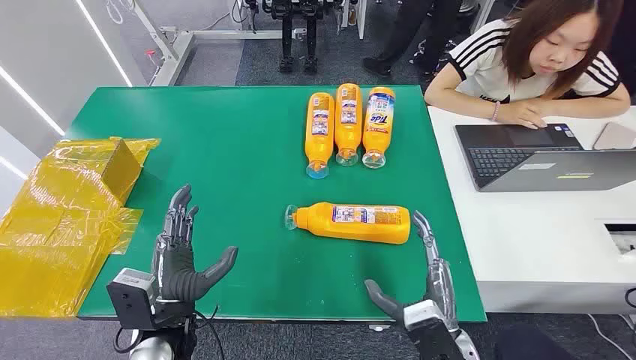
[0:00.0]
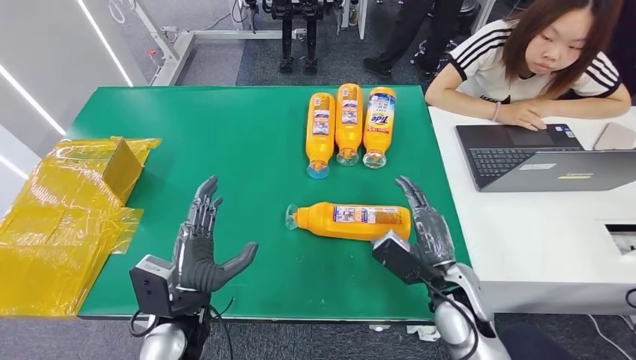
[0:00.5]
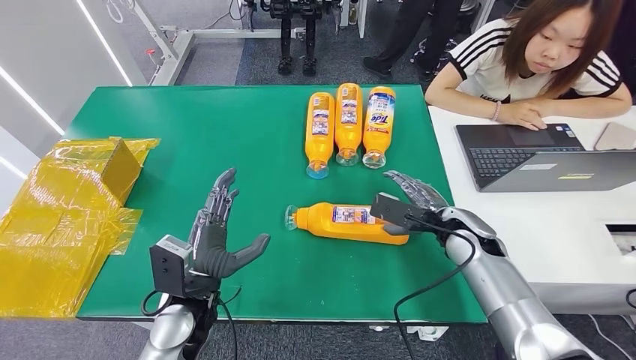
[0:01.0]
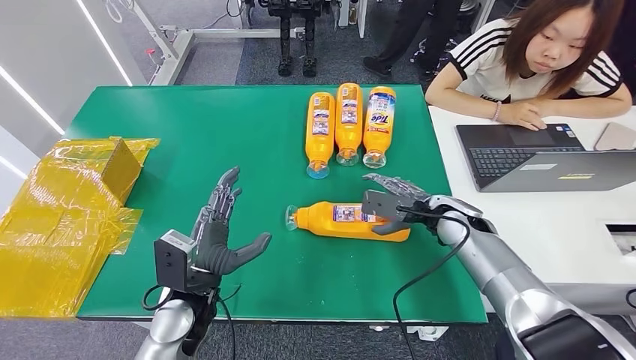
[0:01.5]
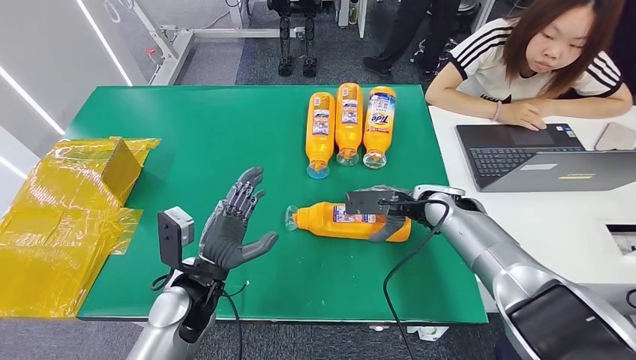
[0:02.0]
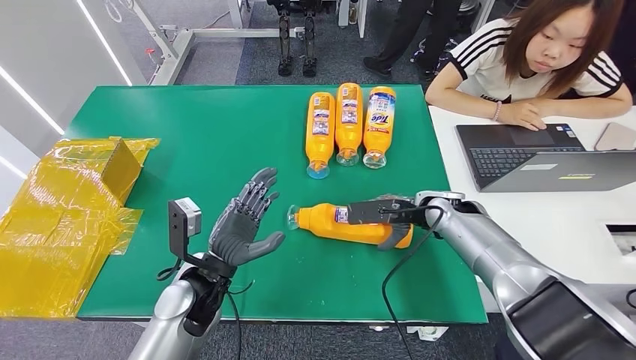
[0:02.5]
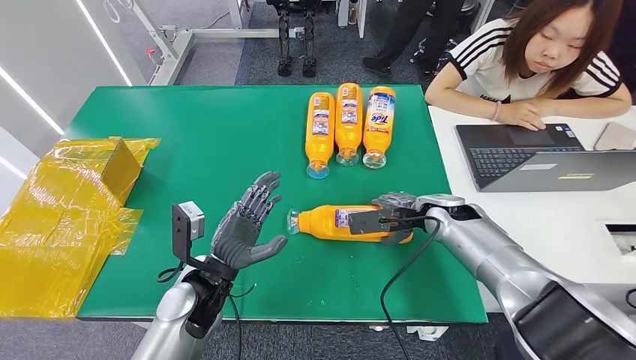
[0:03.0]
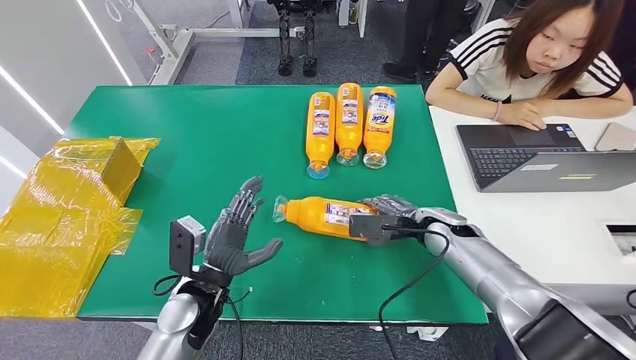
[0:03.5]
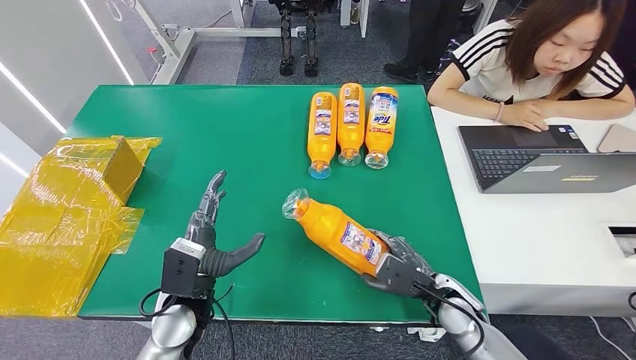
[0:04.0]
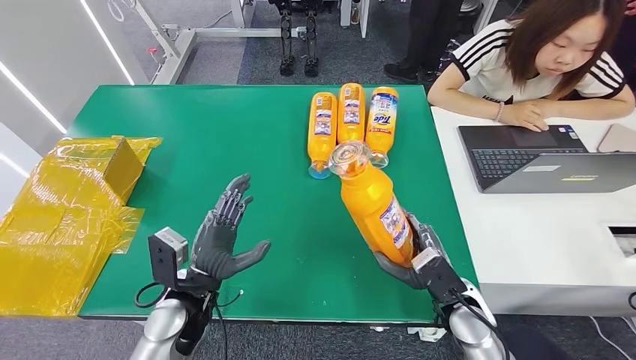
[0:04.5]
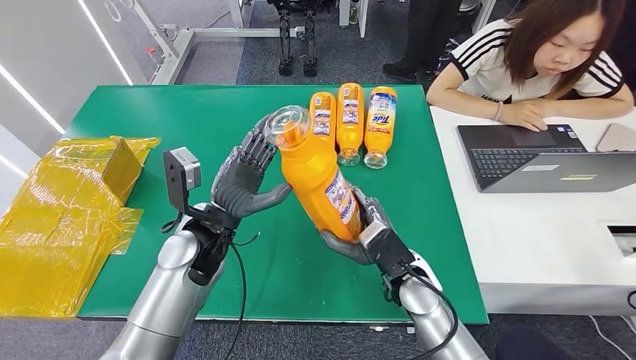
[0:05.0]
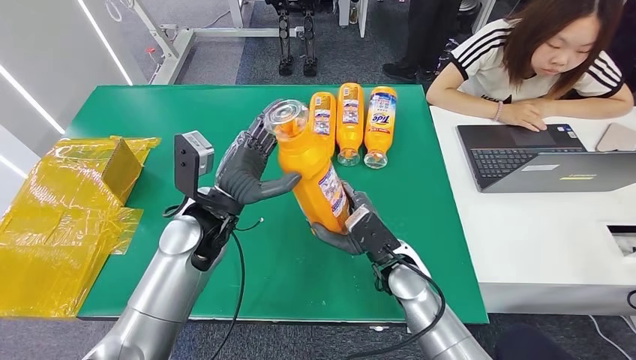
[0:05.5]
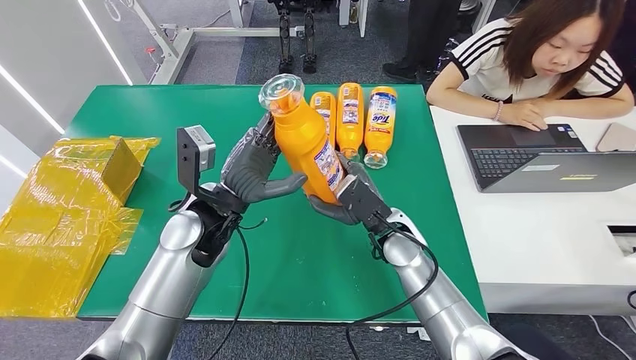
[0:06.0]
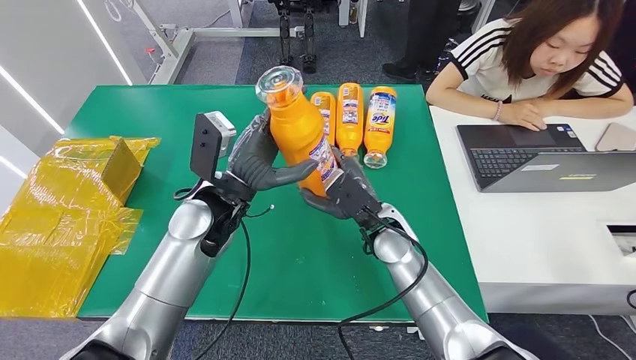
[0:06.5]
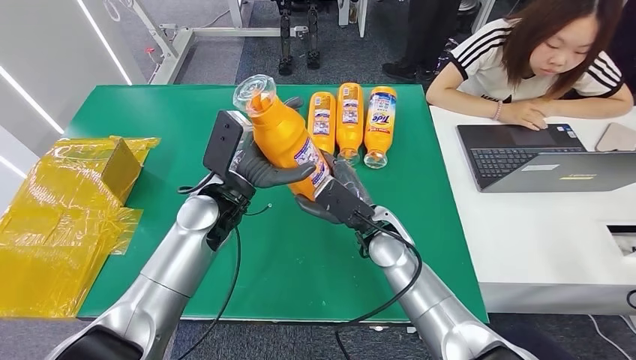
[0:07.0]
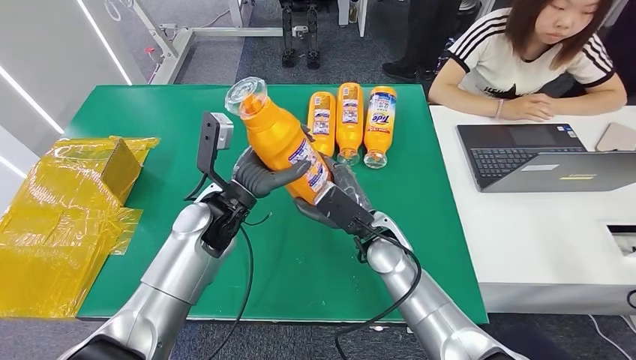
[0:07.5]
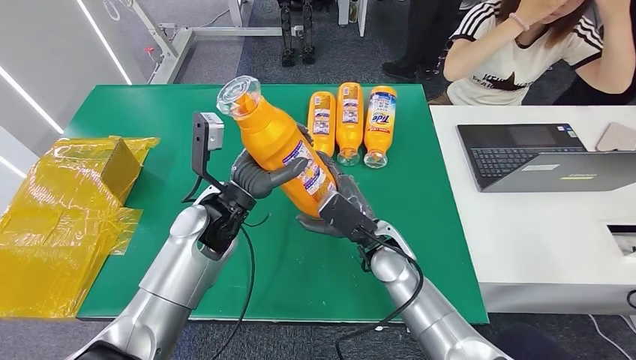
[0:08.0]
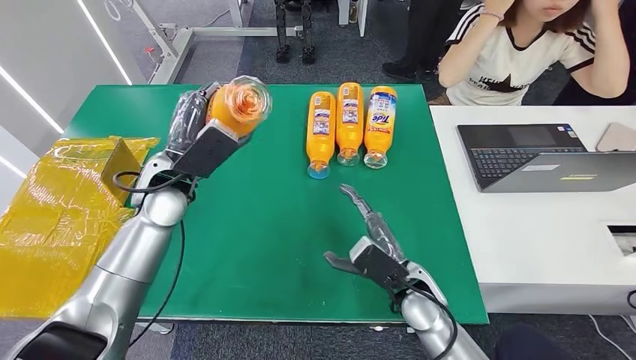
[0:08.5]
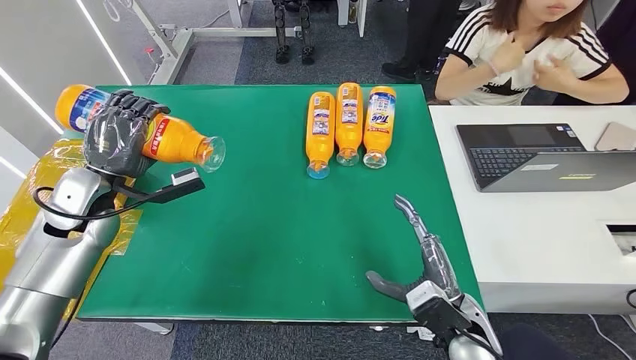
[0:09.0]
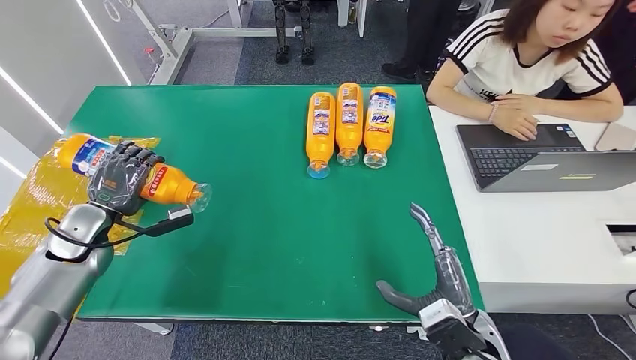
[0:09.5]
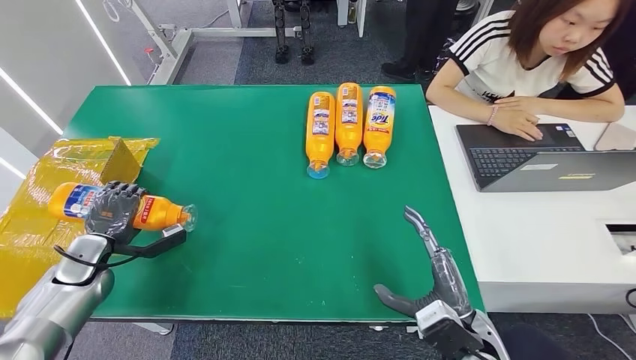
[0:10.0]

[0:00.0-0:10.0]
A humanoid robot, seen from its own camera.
Step, 0:00.0 to 0:06.0: Pick up the bottle from the table.

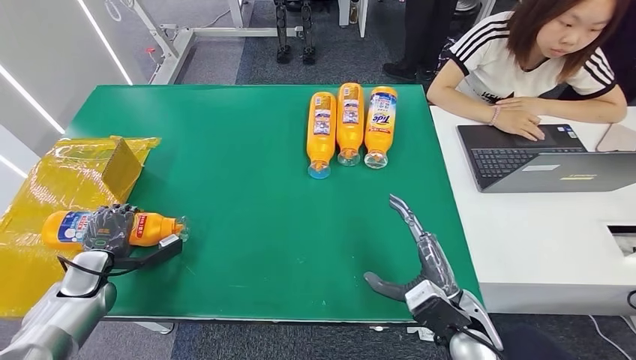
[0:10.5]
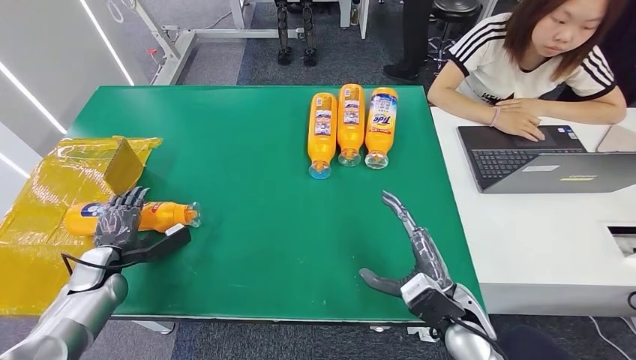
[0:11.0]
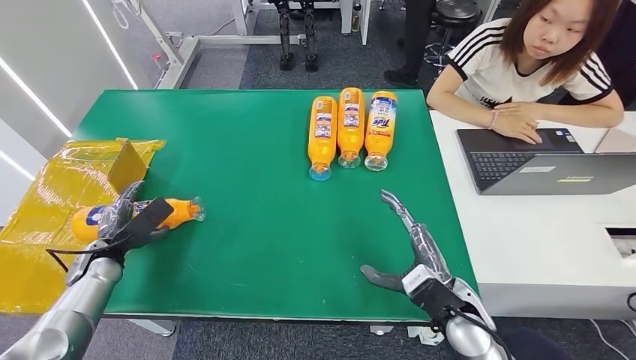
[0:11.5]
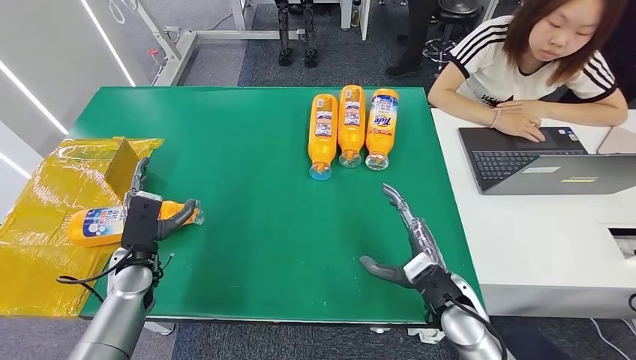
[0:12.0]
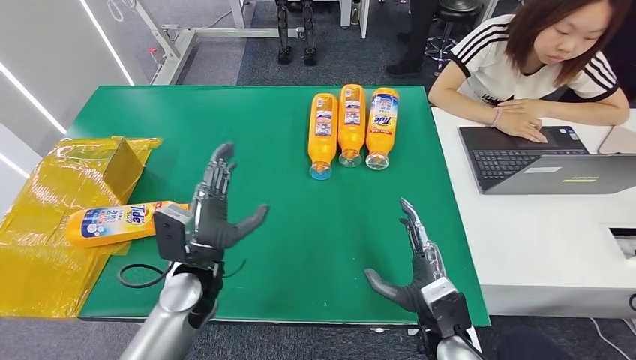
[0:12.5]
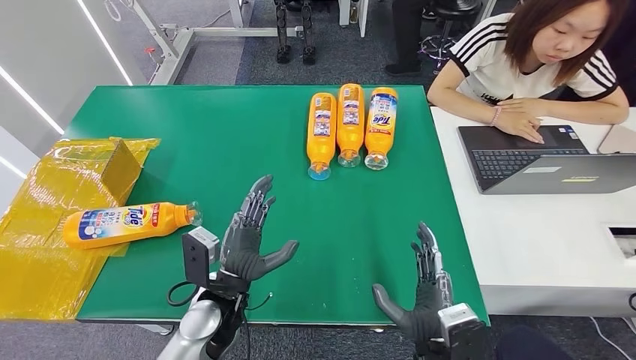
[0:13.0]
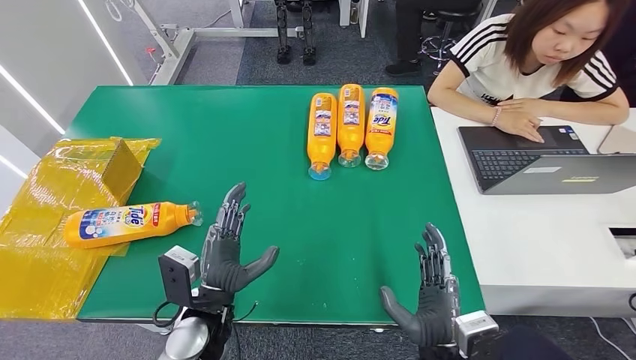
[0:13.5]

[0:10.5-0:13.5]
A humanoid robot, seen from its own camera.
Step, 0:10.5 to 0:13.5: Turn the bottle to the front side.
0:12.0 to 0:13.5: The left hand moves to the right and backward, some 20 cm. Meanwhile the right hand travels backward and to the left by about 10 cm.
